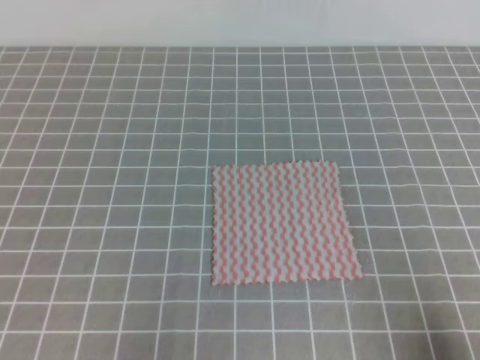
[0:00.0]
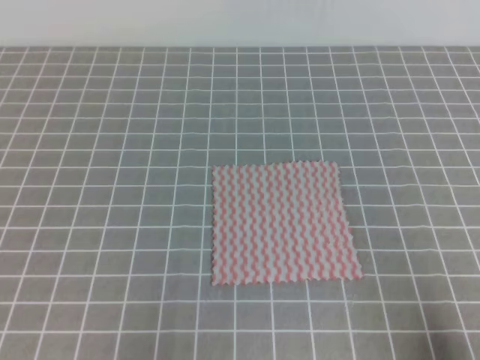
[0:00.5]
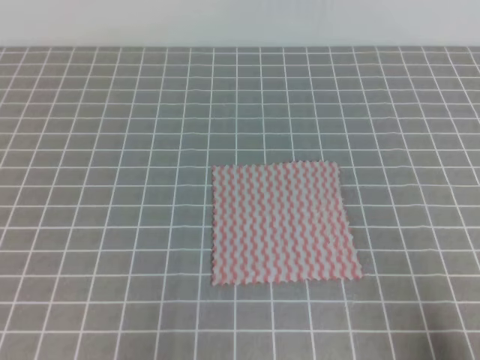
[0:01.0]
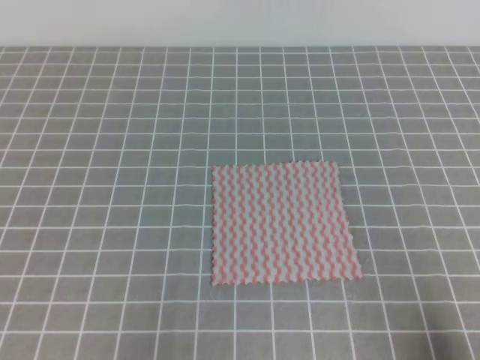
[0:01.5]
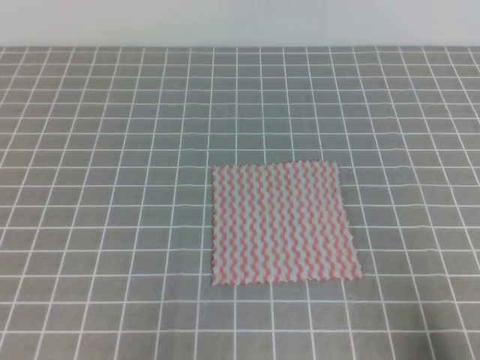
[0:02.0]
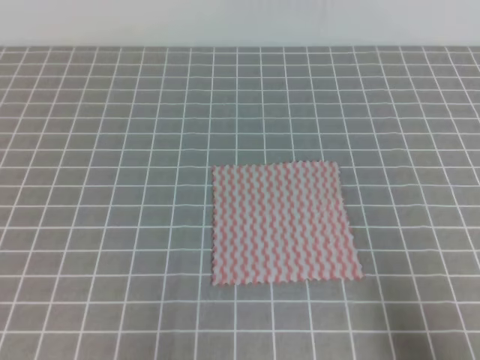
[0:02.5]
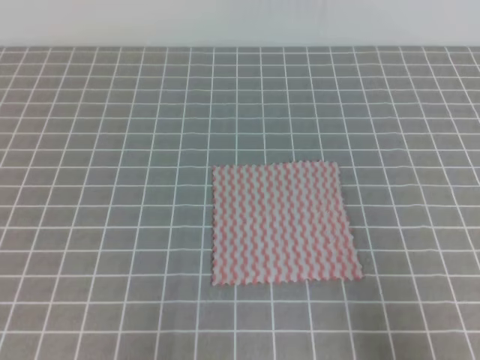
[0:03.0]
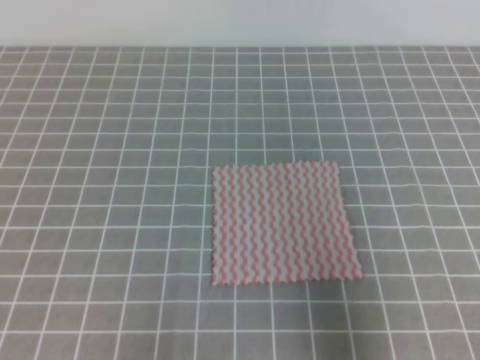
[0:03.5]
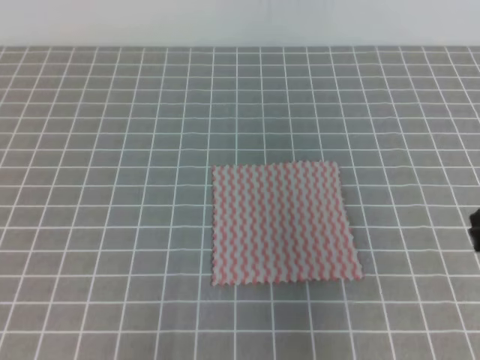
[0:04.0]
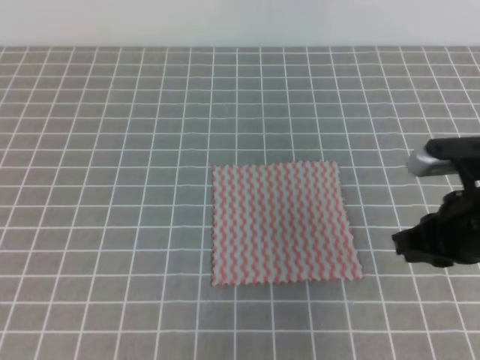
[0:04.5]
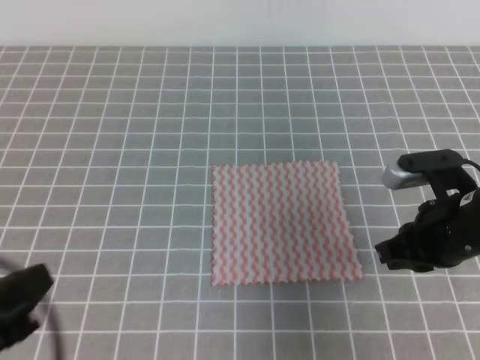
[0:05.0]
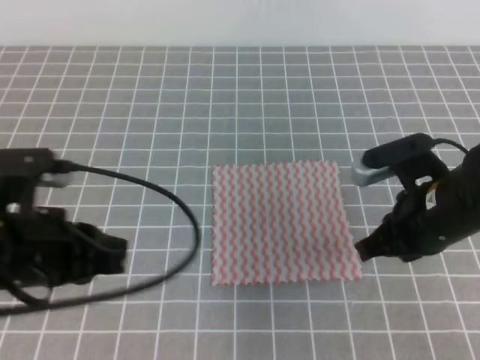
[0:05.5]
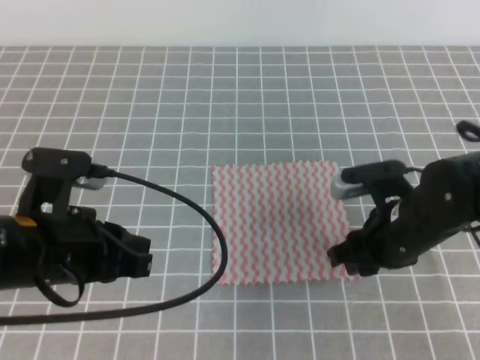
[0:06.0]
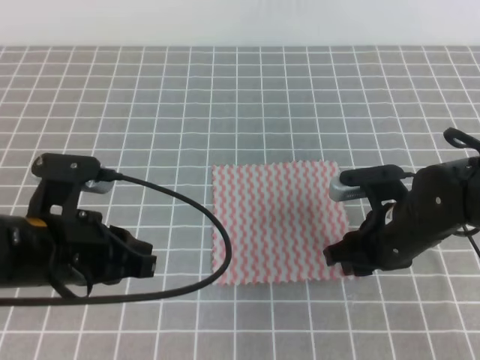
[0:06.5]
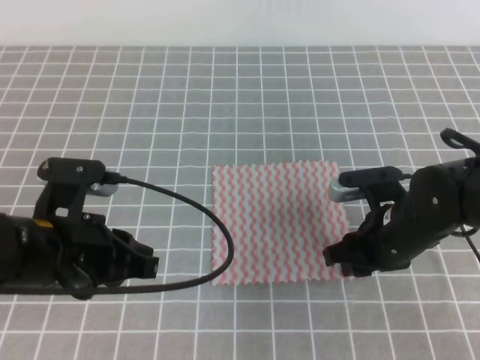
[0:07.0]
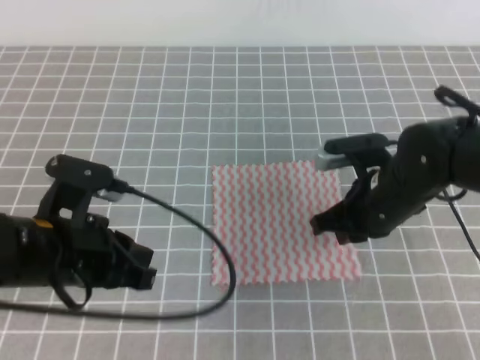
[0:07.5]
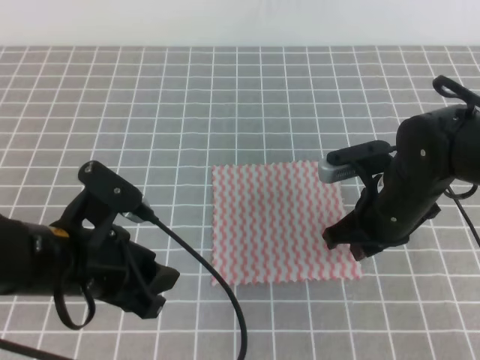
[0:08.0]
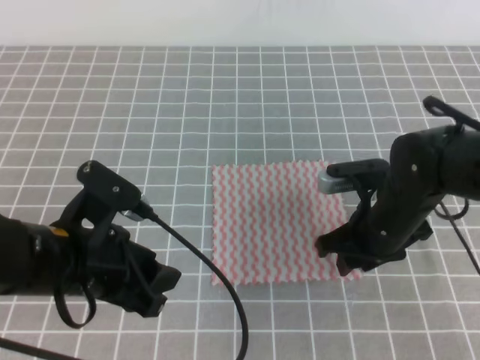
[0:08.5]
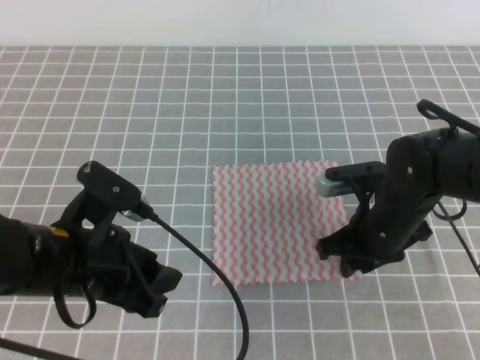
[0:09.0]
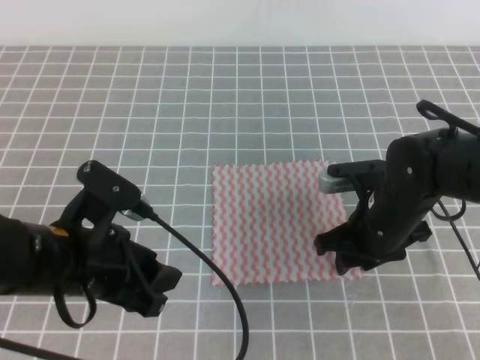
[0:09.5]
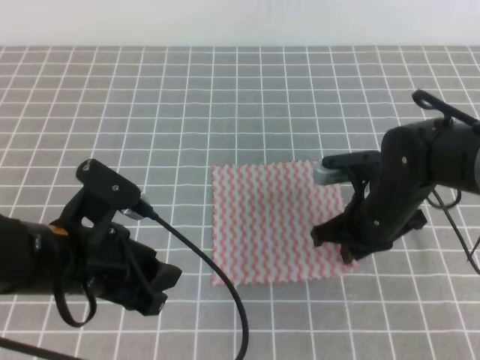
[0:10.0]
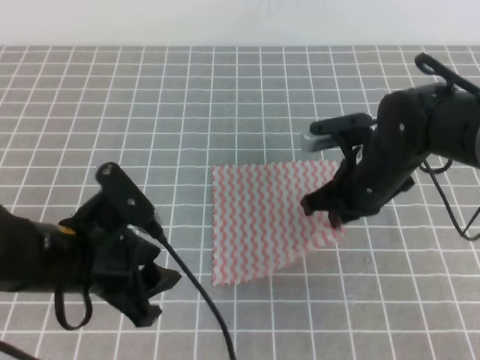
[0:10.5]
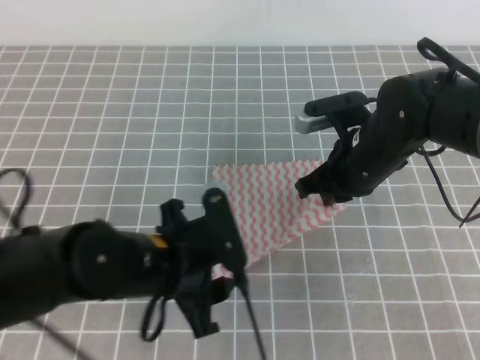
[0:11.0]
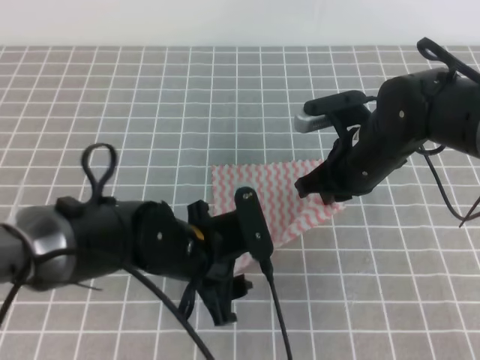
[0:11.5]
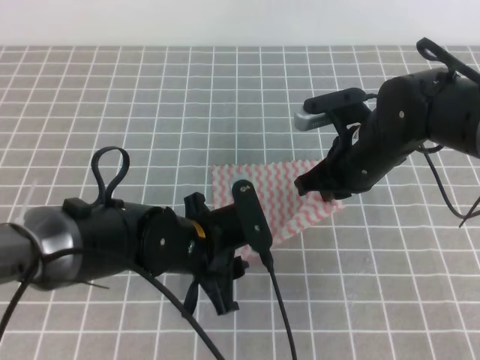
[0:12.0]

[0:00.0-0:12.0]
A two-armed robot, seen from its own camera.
Step, 0:00.0 to 0:10.0: Fold the towel upwards with the both gripper.
0:02.0 to 0:04.0: The right gripper goes about 20 cm forward and upward.
0:04.0 to 0:06.0: The right gripper goes about 15 cm downward, to the left and forward, and opens up; the left gripper travels forward, to the right and upward by approximately 20 cm.
0:06.0 to 0:08.0: The right gripper closes its fingers. The left gripper opens its fingers.
0:08.0 to 0:10.0: The right gripper opens, then closes once more.
0:10.0 to 0:12.0: The left gripper travels to the right and downward by some 10 cm. The right gripper shifts about 5 cm upward.

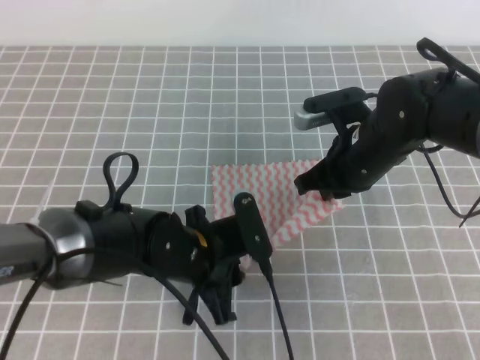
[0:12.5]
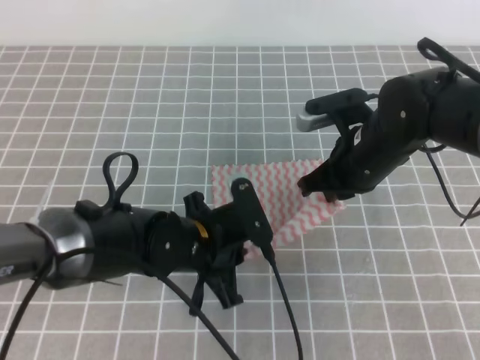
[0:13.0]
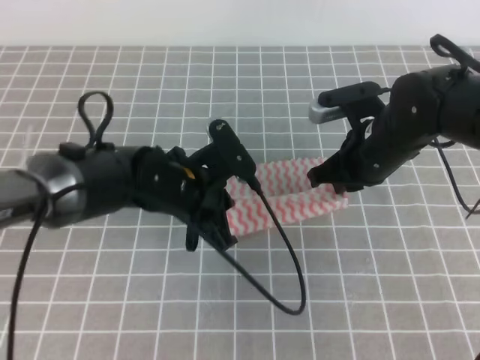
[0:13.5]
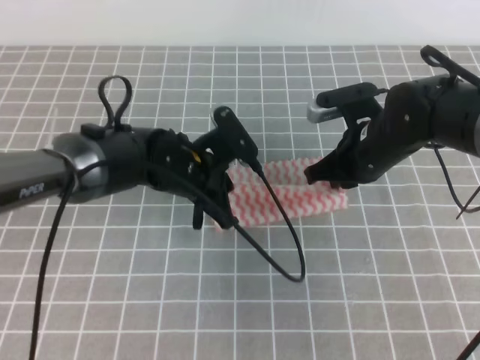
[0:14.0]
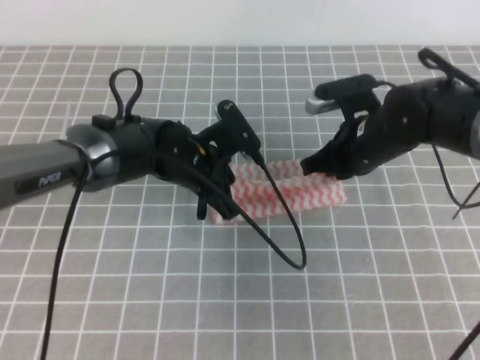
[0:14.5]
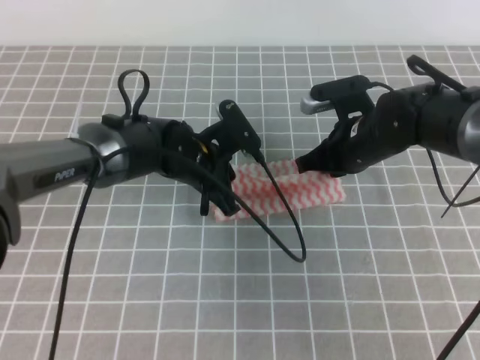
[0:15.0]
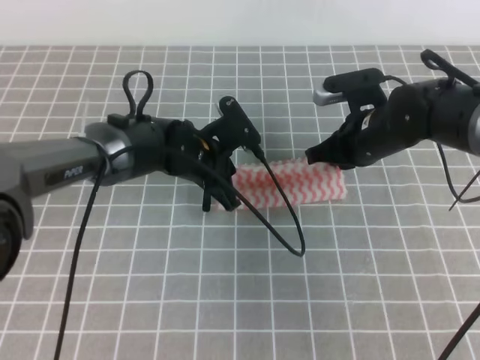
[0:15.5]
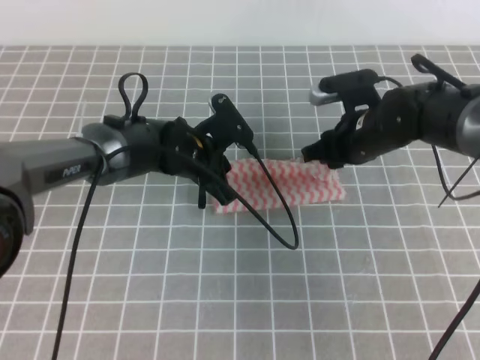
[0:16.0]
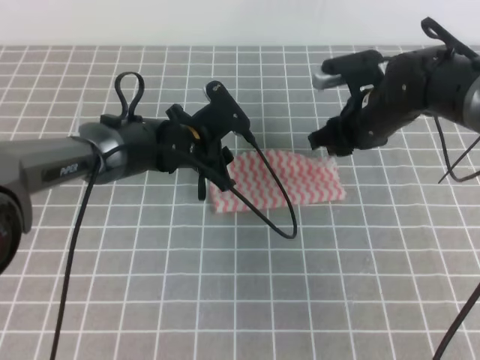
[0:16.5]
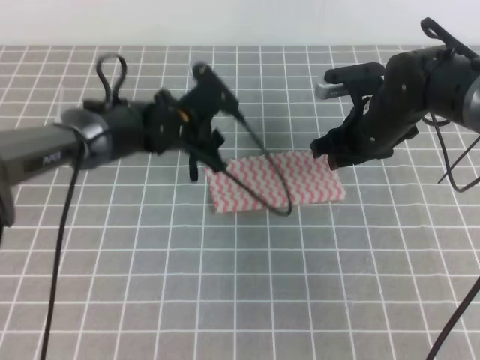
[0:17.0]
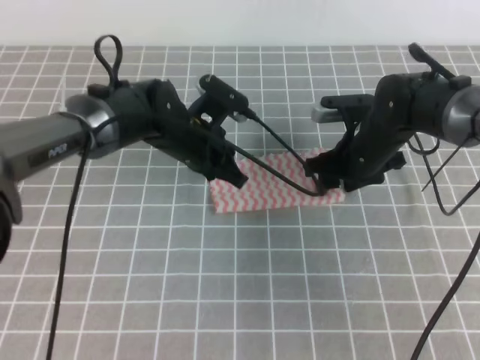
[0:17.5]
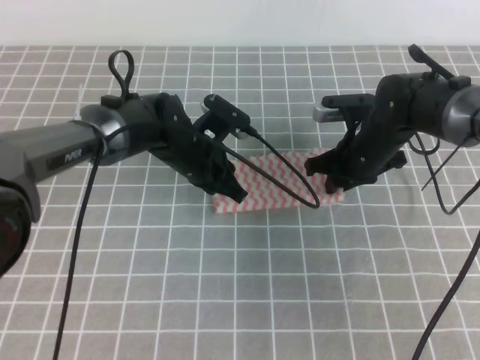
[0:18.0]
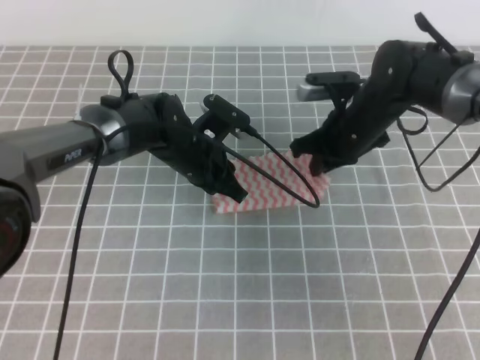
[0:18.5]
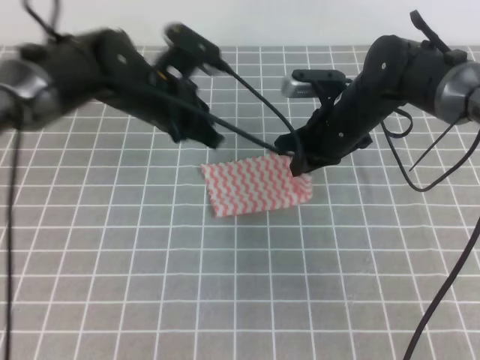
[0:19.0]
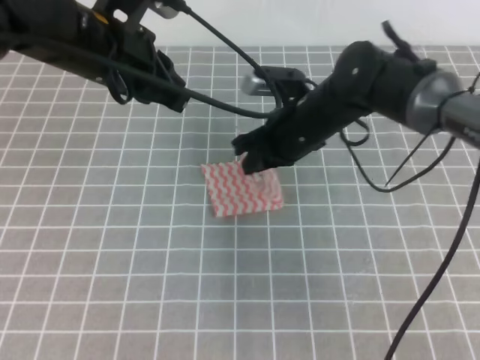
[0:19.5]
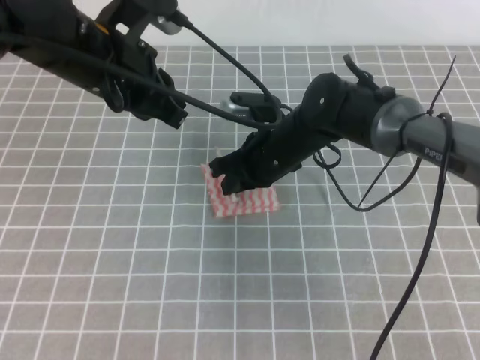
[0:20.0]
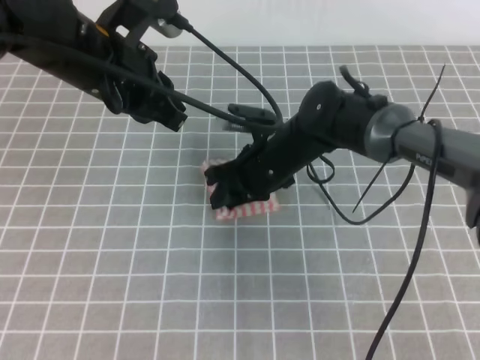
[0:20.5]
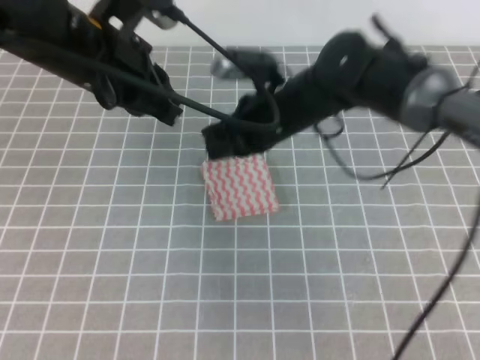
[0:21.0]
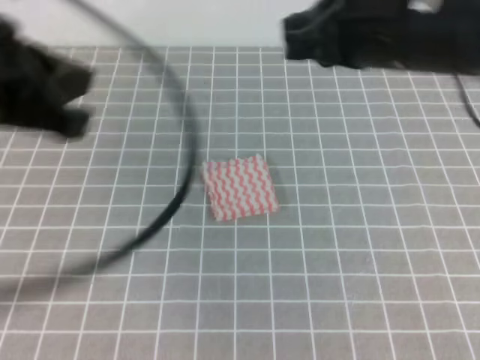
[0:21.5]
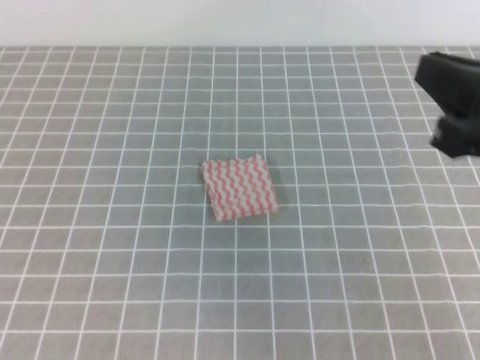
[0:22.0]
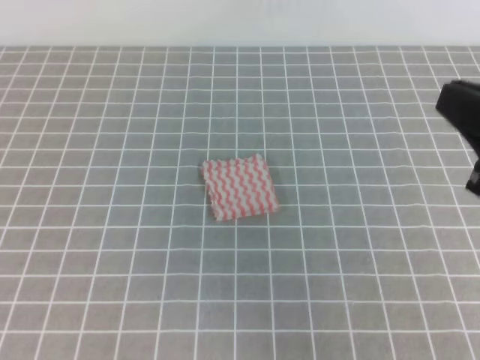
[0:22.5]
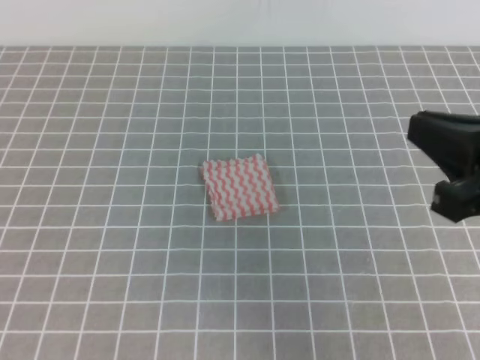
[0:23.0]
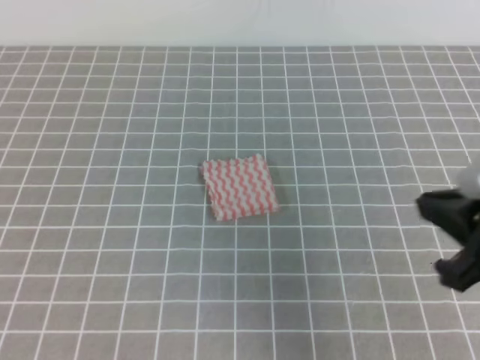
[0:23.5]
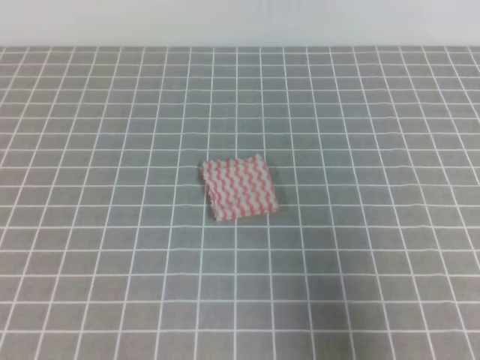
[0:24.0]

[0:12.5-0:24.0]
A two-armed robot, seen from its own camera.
0:12.5 to 0:14.5: The left gripper moves forward, some 10 cm, and closes.
0:14.5 to 0:16.5: The right gripper opens its fingers. Meanwhile the left gripper changes place by roughly 5 cm, and opens.
0:16.5 to 0:18.5: The left gripper closes up; the right gripper closes its fingers.
0:18.5 to 0:20.0: The left gripper heads upward, covering some 20 cm. The right gripper moves to the left, roughly 10 cm.
0:20.0 to 0:22.0: The right gripper shifts some 35 cm backward, upward and to the right, and opens, then closes once more. Meanwhile the left gripper travels backward and to the left by approximately 30 cm.
0:22.0 to 0:24.0: The left gripper ends up roughly 5 cm from where it was. The right gripper heads backward, to the right and downward, covering some 15 cm.
